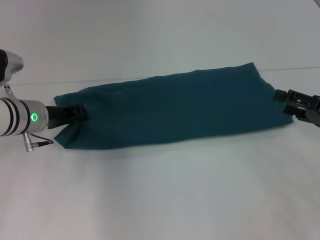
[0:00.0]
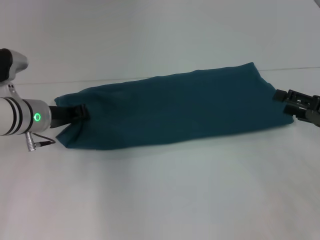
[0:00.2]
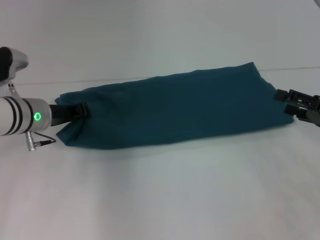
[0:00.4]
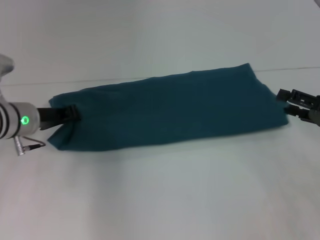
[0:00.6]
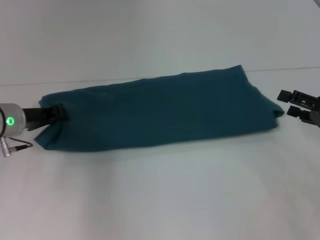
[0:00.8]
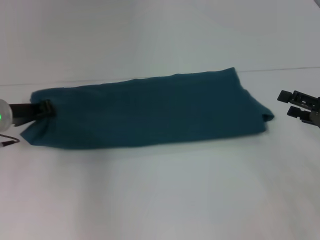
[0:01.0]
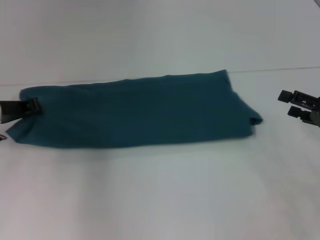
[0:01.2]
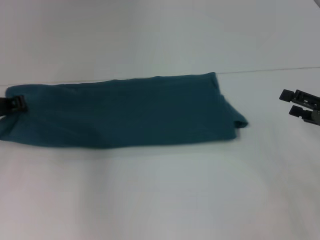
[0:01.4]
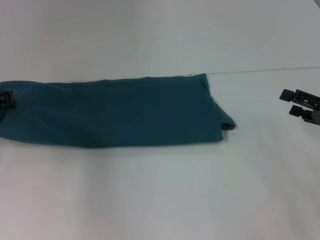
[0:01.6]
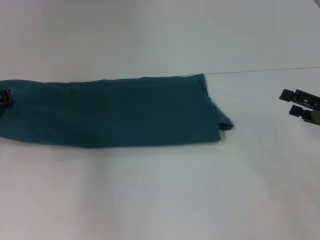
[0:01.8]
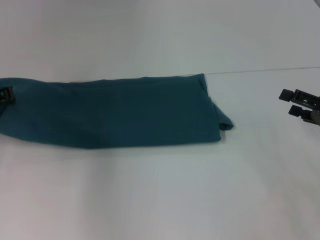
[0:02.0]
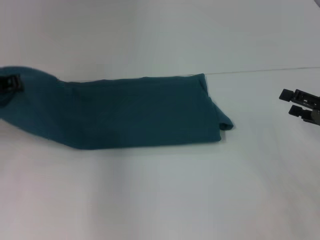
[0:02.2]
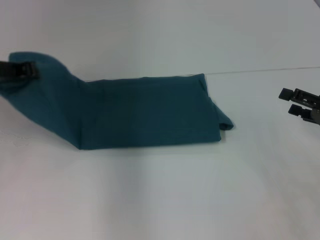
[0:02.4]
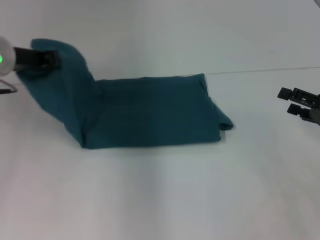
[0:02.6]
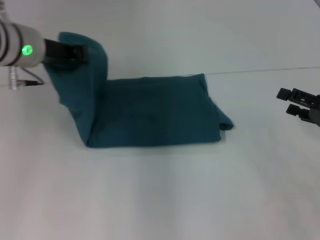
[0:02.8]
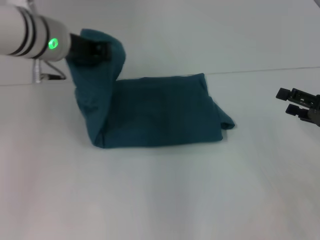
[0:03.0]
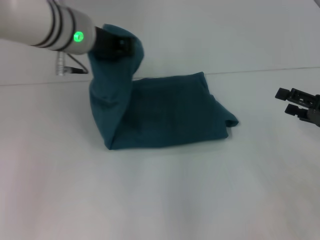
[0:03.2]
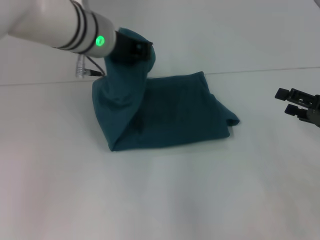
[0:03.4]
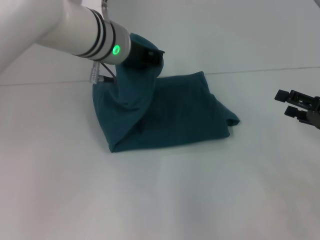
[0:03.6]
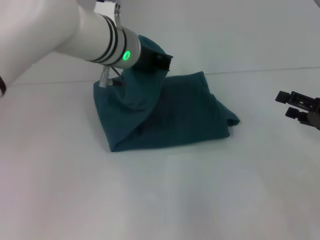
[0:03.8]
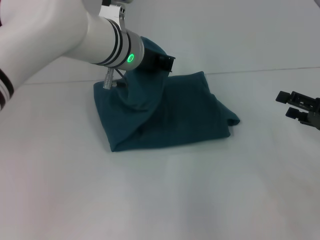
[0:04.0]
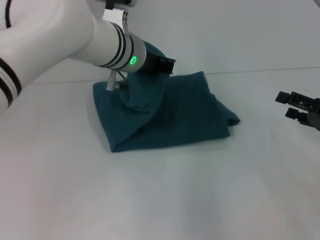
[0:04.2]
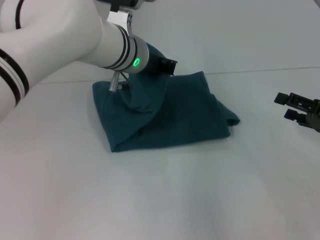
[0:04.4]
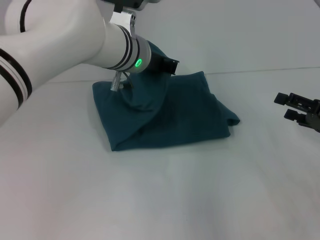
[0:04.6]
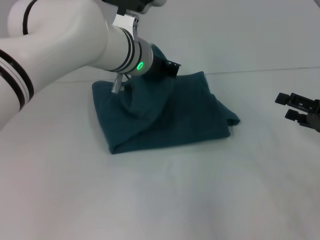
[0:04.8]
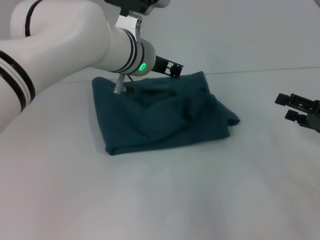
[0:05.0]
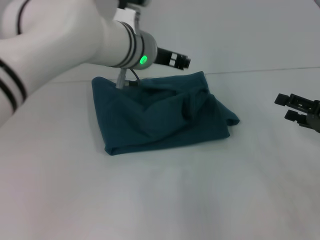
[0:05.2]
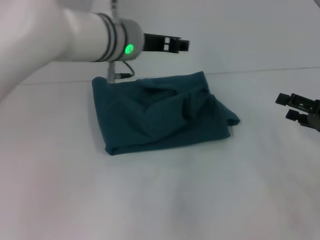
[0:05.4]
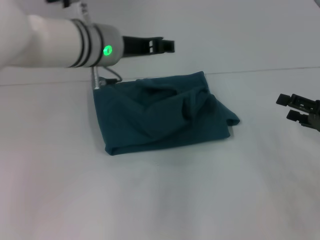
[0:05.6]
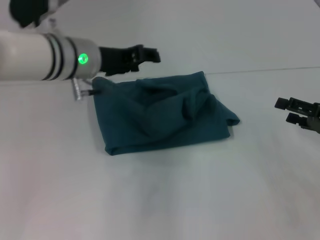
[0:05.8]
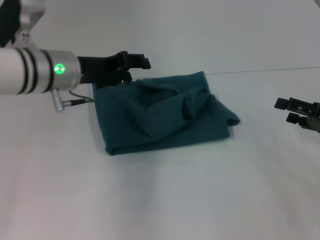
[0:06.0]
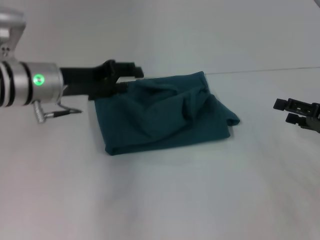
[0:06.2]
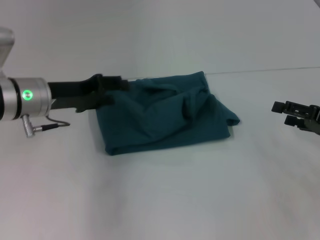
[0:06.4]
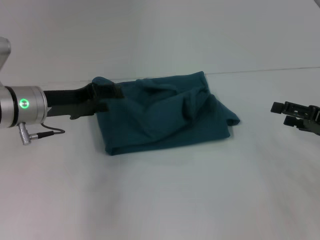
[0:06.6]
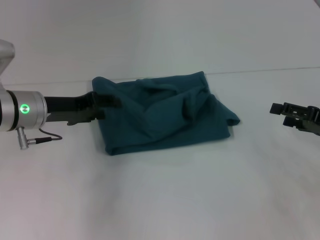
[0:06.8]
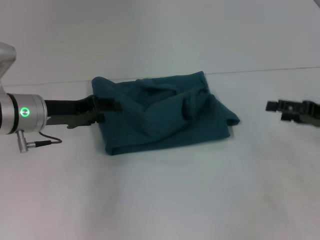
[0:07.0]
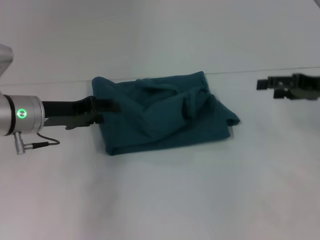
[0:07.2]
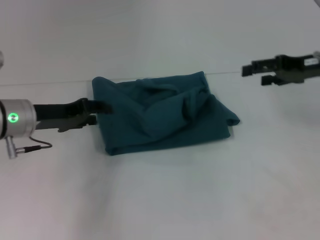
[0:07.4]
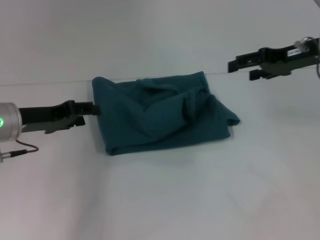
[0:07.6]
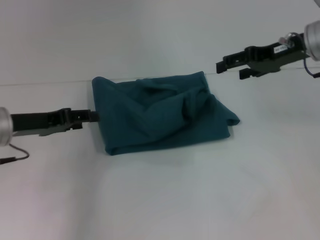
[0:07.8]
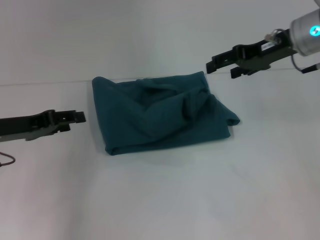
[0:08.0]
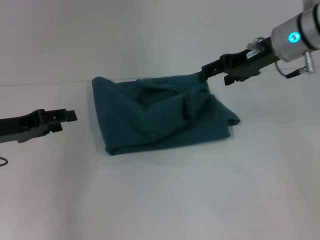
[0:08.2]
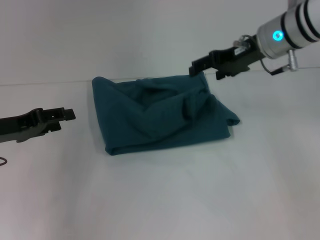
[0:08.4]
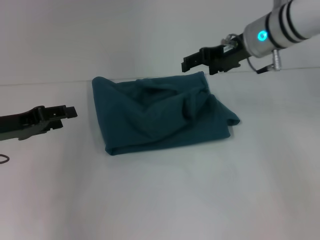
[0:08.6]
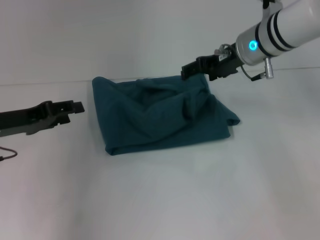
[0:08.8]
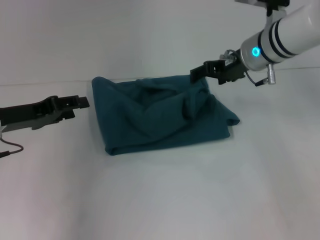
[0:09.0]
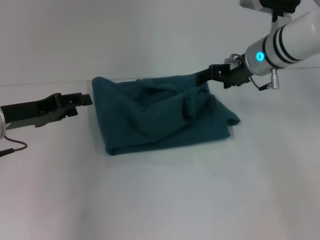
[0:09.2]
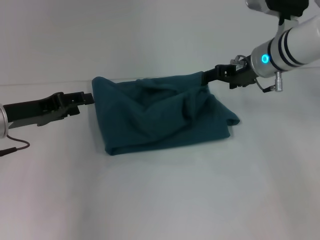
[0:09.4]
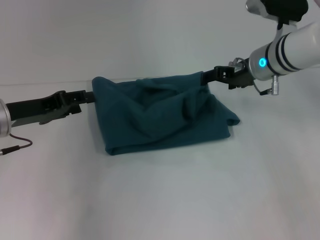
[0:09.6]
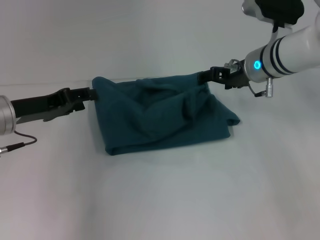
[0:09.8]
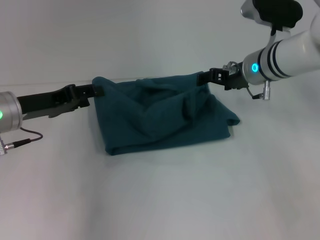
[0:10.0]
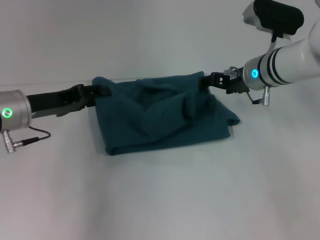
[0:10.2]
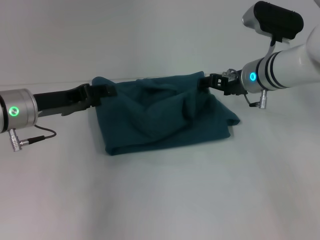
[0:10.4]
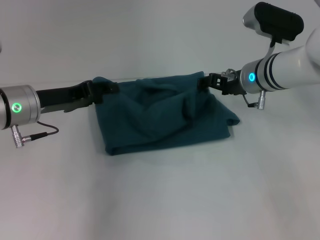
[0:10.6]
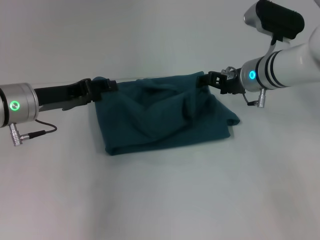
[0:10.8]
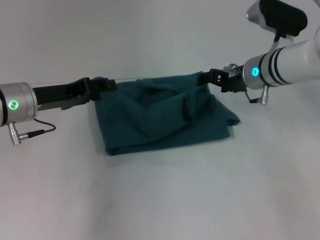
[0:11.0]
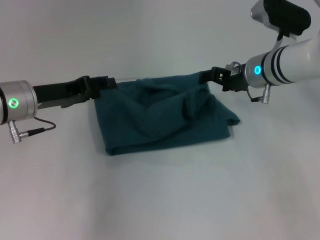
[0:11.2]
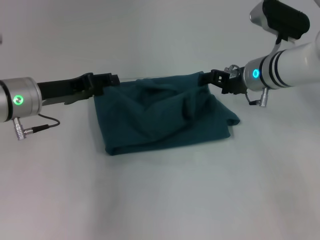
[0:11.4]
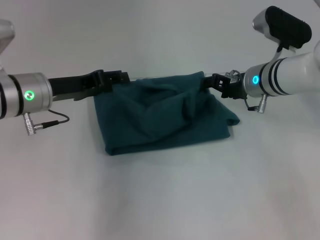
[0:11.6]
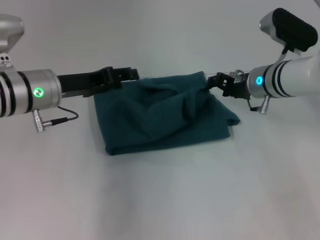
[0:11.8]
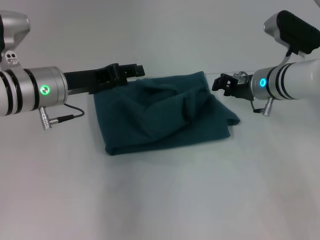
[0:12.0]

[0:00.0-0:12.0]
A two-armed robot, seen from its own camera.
Step, 0:00.0 to 0:05.6: Fold the clothes to the left.
0:00.0 to 0:01.6: The left gripper shifts some 10 cm to the left.
0:01.6 to 0:03.0: The left gripper heads to the right and upward, covering some 20 cm.
0:03.0 to 0:04.4: The left gripper shifts approximately 10 cm to the right.
0:04.4 to 0:06.0: The left gripper travels to the left by roughly 10 cm, and opens.
0:06.0 to 0:07.6: The left gripper travels to the left and downward by approximately 10 cm. Meanwhile the right gripper shifts about 15 cm forward, upward and to the left.
0:07.6 to 0:09.0: The right gripper is displaced to the left by roughly 10 cm.
0:09.0 to 0:10.4: The right gripper ends up roughly 5 cm from where it was, while the left gripper shifts by approximately 5 cm.
0:10.4 to 0:12.0: The left gripper changes place by roughly 5 cm. Meanwhile the right gripper closes its fingers.

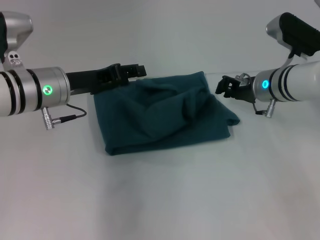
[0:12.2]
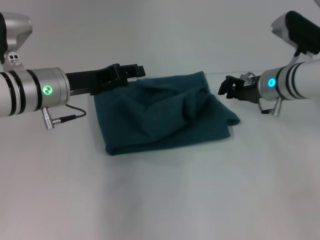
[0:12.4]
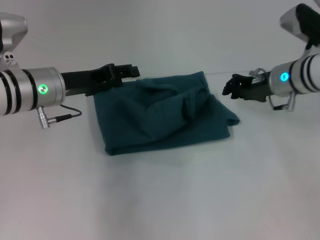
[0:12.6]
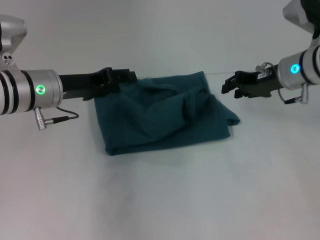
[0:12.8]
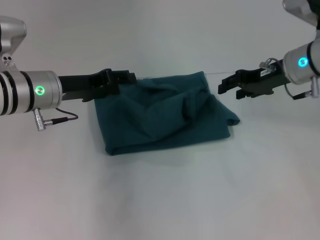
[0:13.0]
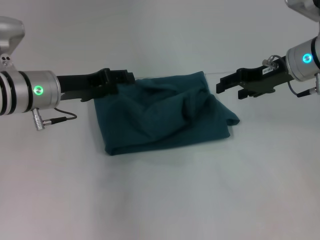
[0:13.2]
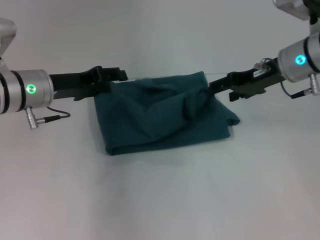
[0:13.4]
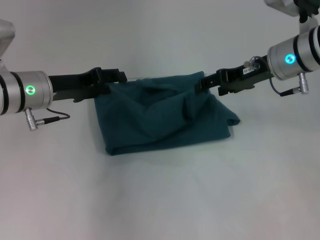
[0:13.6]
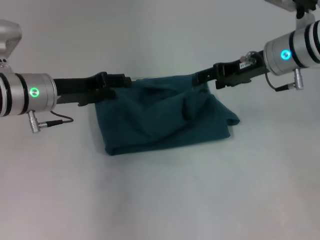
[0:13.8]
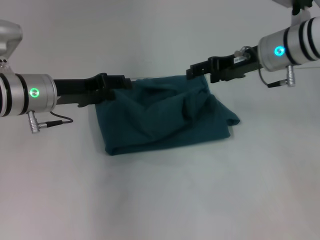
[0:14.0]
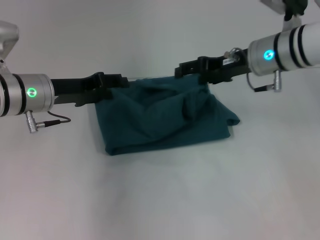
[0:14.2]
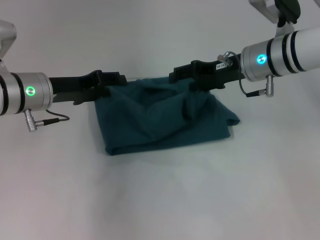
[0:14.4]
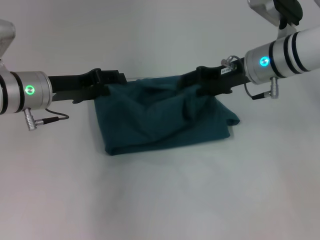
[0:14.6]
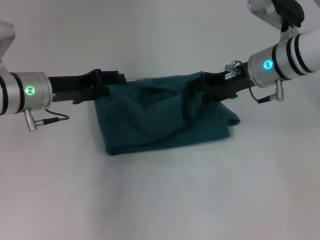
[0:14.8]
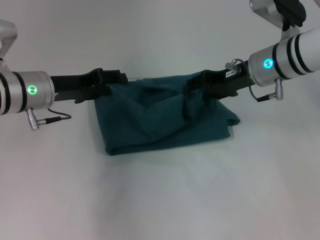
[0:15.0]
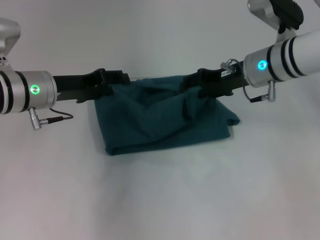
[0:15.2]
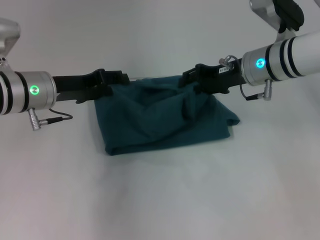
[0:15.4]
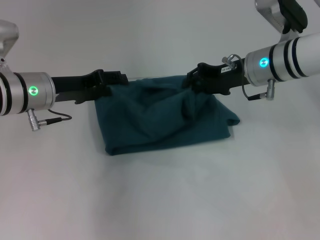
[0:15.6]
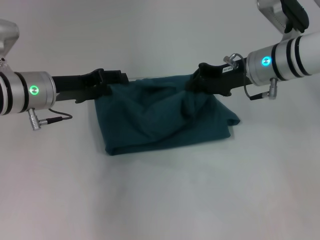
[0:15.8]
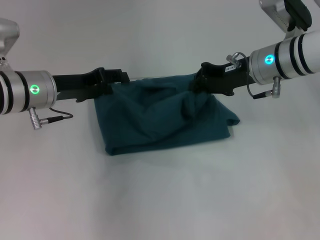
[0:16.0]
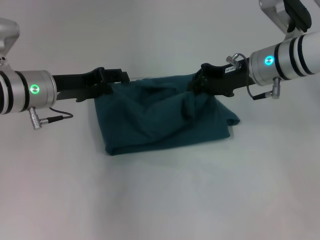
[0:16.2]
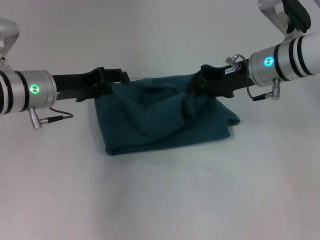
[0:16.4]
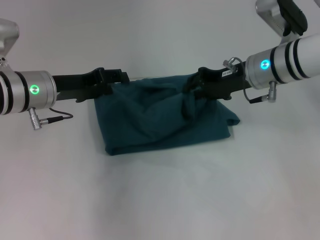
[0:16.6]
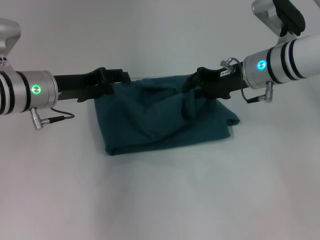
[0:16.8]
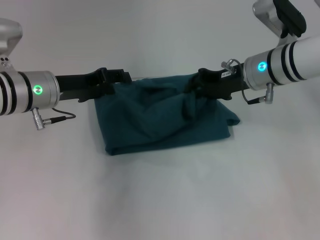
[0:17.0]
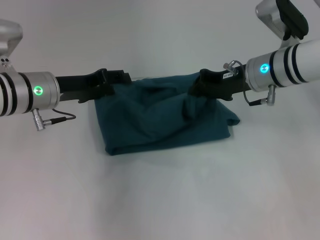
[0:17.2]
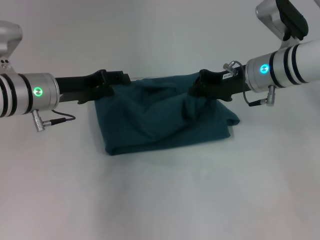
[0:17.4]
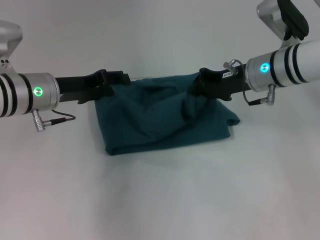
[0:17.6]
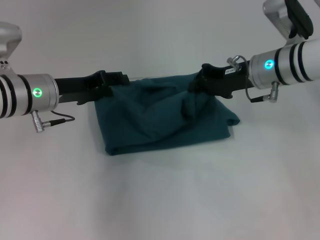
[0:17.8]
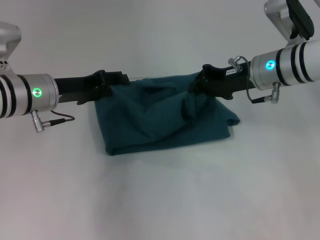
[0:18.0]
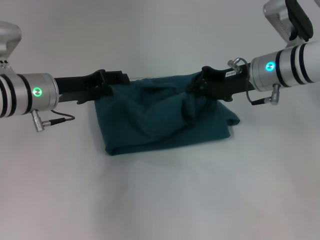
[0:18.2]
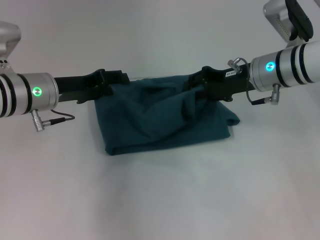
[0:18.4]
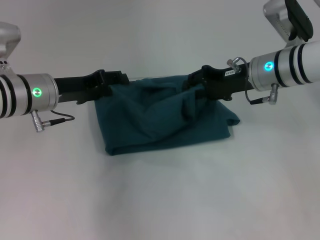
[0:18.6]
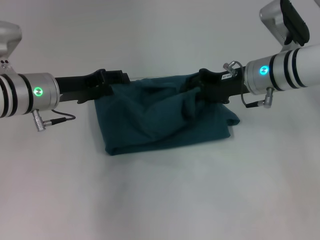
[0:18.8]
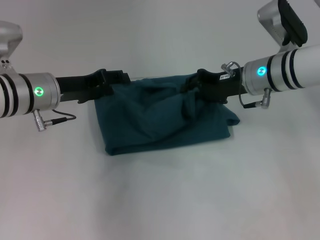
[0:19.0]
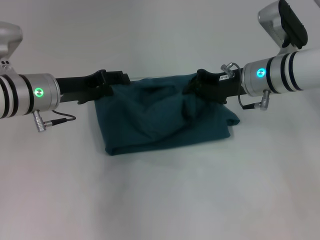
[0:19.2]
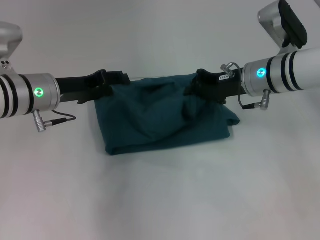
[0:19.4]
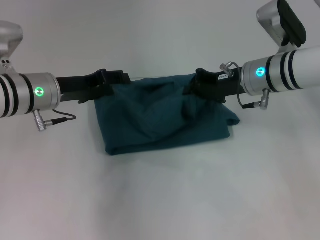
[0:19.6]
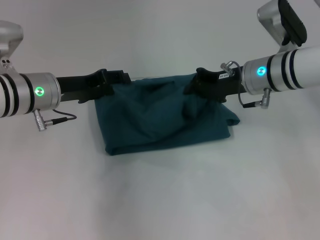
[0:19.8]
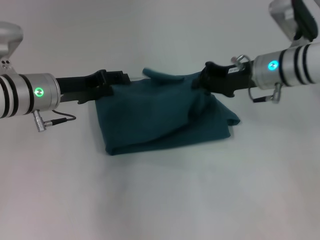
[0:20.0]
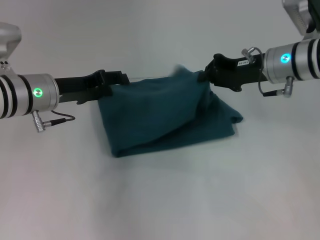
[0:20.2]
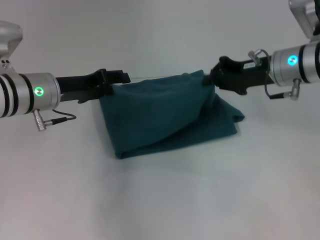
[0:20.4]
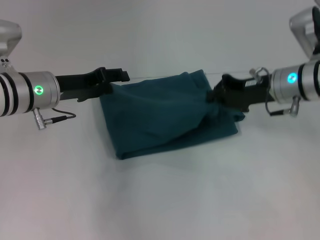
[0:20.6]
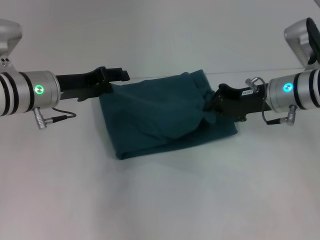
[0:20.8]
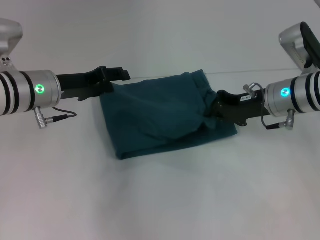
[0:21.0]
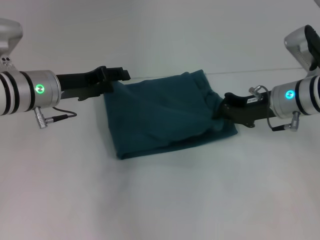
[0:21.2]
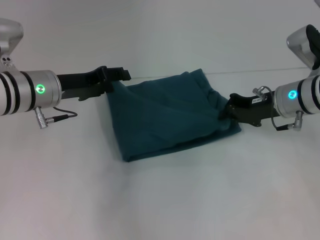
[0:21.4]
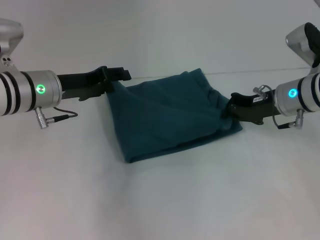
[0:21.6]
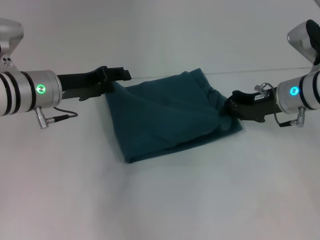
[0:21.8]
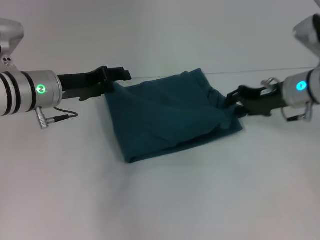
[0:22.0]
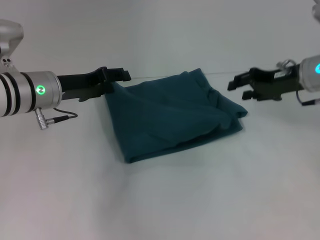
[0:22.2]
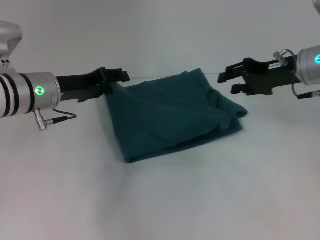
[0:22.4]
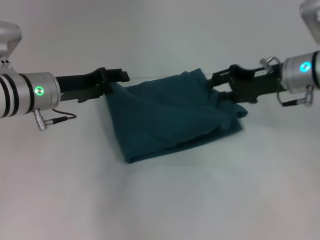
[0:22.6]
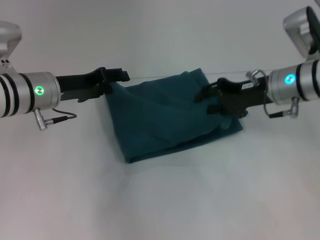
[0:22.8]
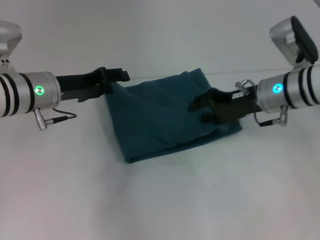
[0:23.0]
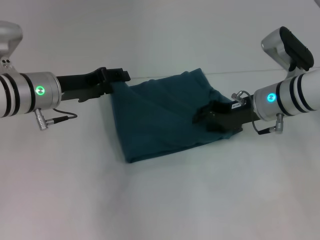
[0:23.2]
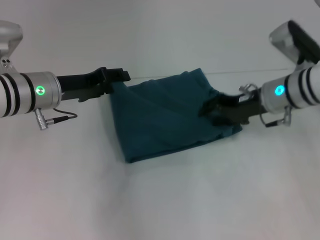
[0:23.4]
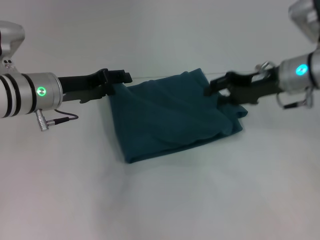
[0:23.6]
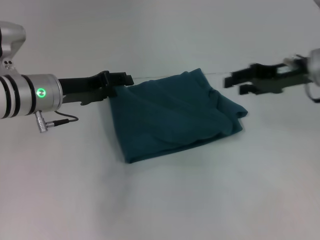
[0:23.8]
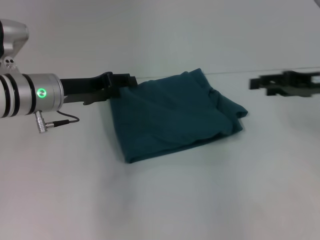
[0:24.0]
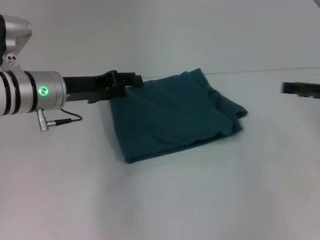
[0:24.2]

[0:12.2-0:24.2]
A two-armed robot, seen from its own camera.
0:12.2 to 0:13.8: The right gripper shifts approximately 10 cm upward, and opens its fingers.
0:13.8 to 0:15.2: The grippers stay close to where they were, moving slightly.
0:15.2 to 0:16.6: The right gripper closes its fingers.
0:16.6 to 0:19.8: There are only small adjustments of the grippers.
0:19.8 to 0:21.2: The right gripper ends up roughly 5 cm from where it was.
0:21.2 to 0:22.6: The right gripper opens its fingers.
0:22.6 to 0:24.2: The right gripper moves to the right and backward, approximately 15 cm.
